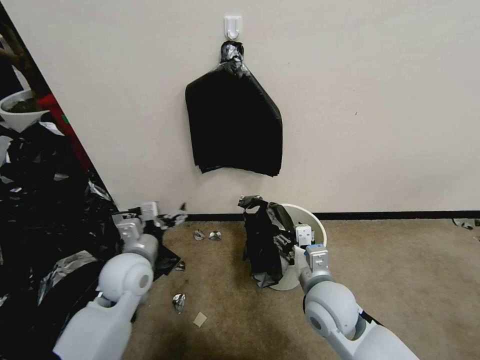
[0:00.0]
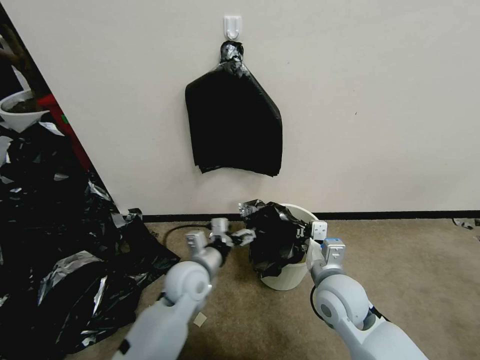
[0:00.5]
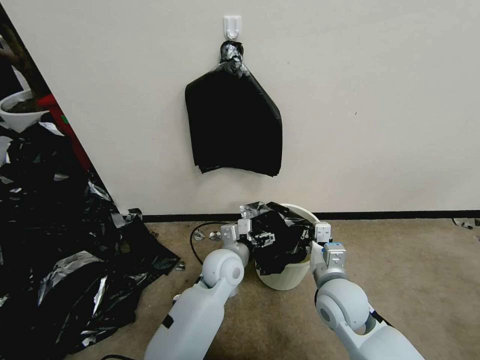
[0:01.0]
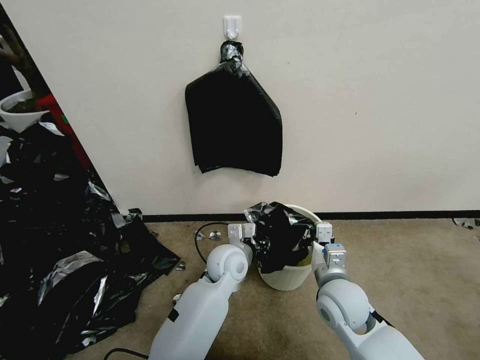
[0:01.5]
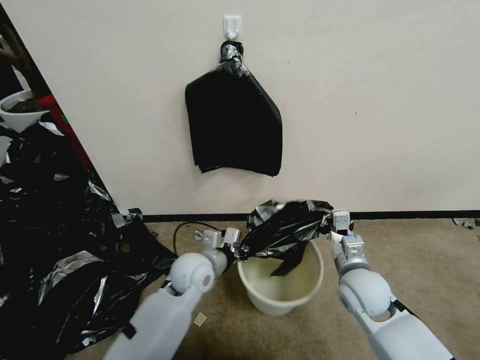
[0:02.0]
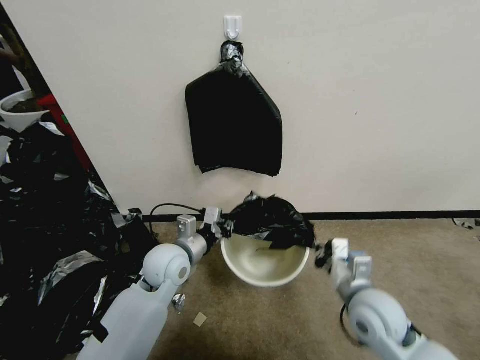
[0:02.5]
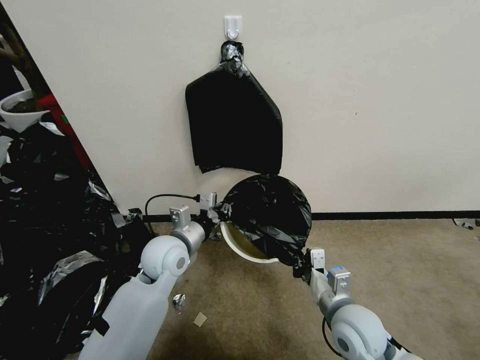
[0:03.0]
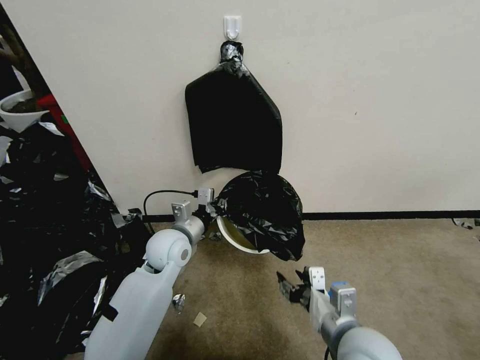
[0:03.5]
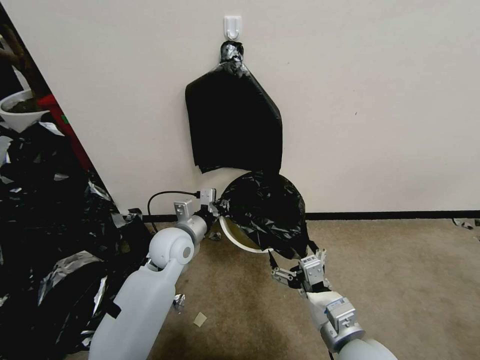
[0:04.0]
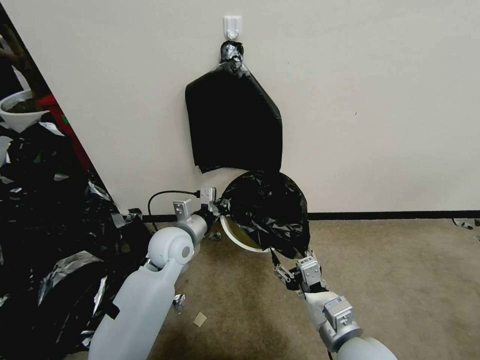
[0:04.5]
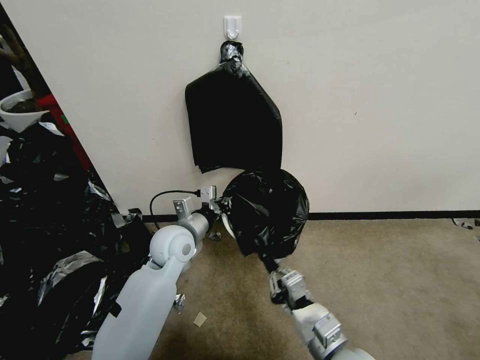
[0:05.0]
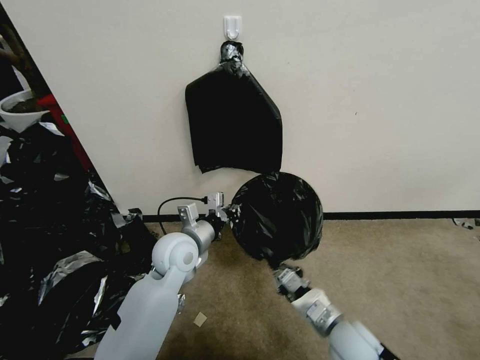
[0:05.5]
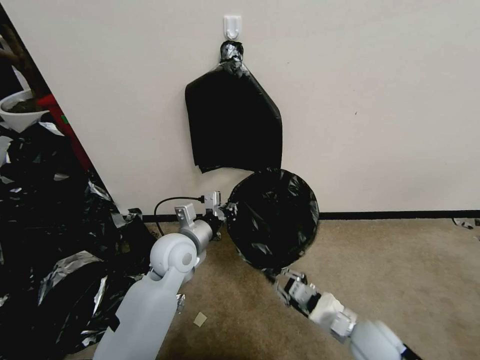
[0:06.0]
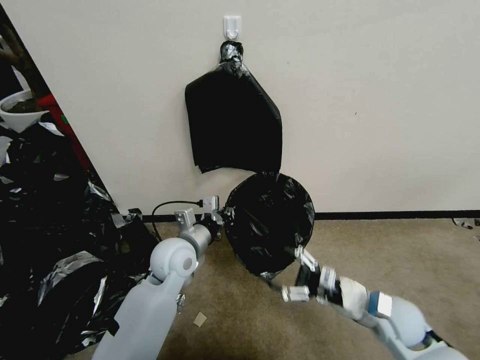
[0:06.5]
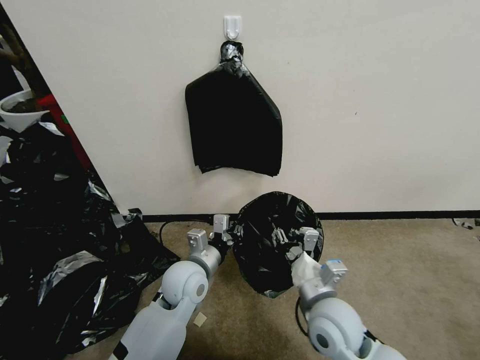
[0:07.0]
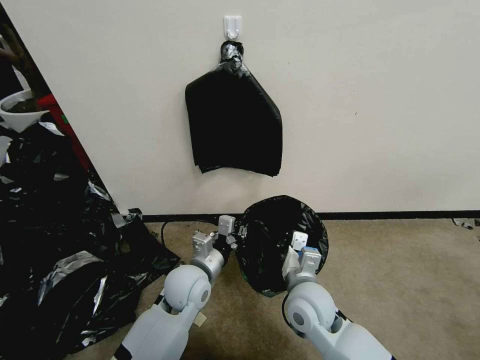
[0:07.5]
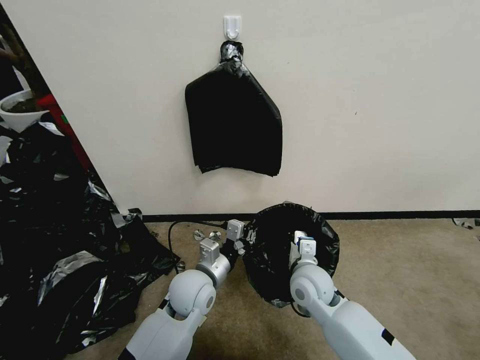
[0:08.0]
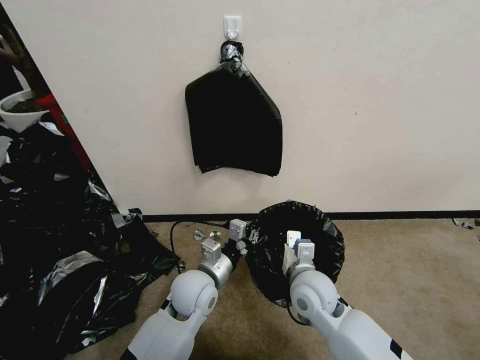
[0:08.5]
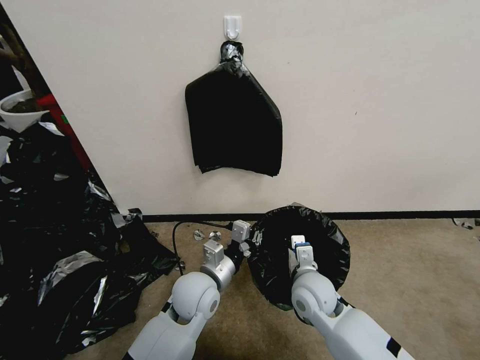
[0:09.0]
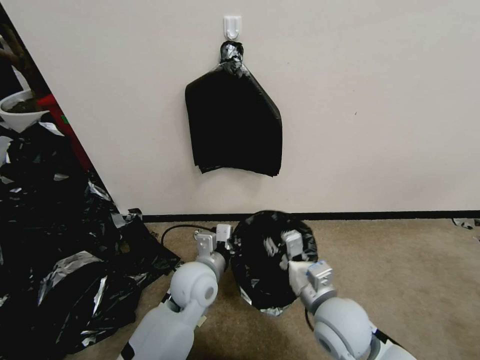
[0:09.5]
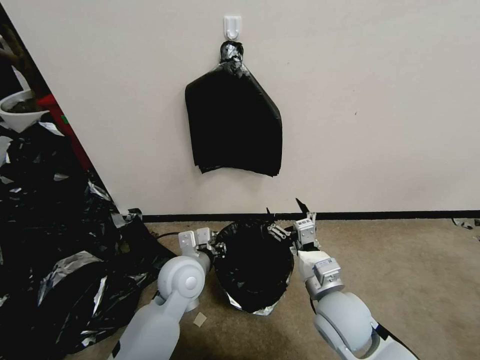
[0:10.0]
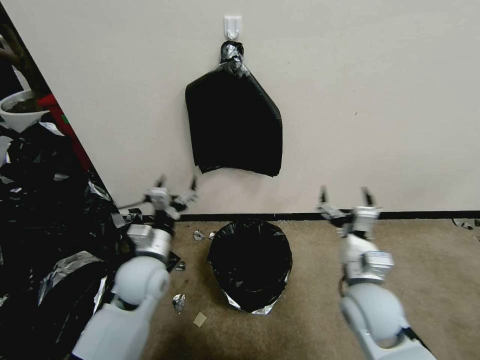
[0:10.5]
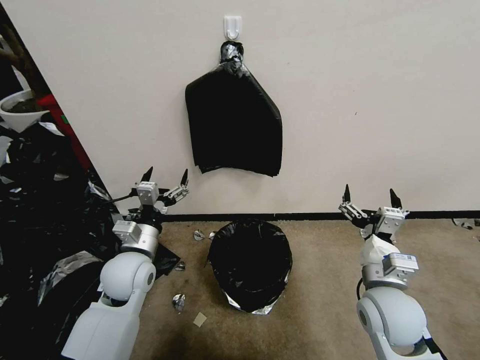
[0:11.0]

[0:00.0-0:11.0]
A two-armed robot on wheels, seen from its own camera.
Task of the whole recording: Place a trash bag onto the trash bin.
0:00.0 to 0:02.0: The left gripper shifts about 15 cm to the right and downward, and closes up. The right gripper travels to the right by about 10 cm, and closes its fingers.
0:02.0 to 0:03.5: The left gripper heads to the left and upward, covering roughly 10 cm. The right gripper goes roughly 15 cm backward and to the left, and opens its fingers.
0:03.5 to 0:05.5: The right gripper is displaced downward by some 10 cm, and closes up.
0:05.5 to 0:07.5: The left gripper travels downward by about 5 cm. Meanwhile the right gripper moves to the left, upward and forward, some 15 cm, and opens, then closes once more.
0:09.0 to 0:11.0: The right gripper moves to the right, upward and backward, roughly 15 cm, and opens up; the left gripper is displaced to the left by roughly 15 cm, and opens its fingers.
